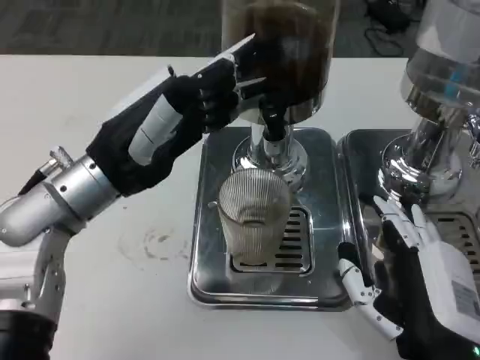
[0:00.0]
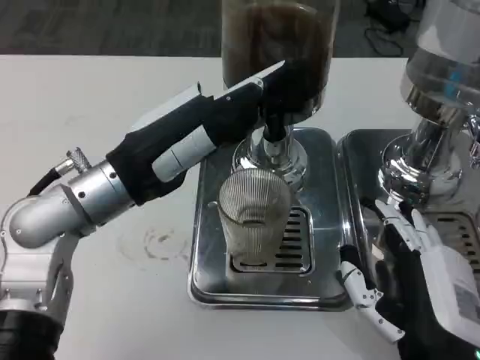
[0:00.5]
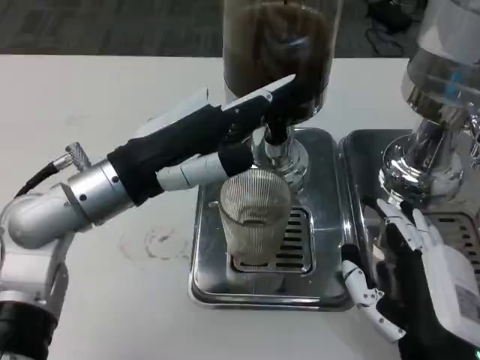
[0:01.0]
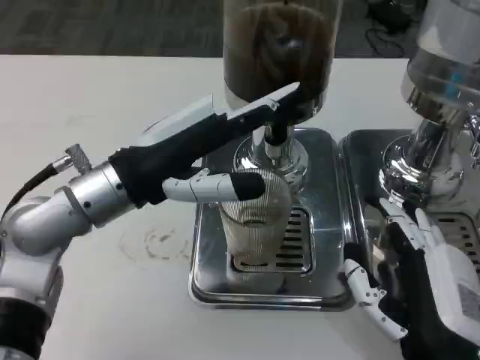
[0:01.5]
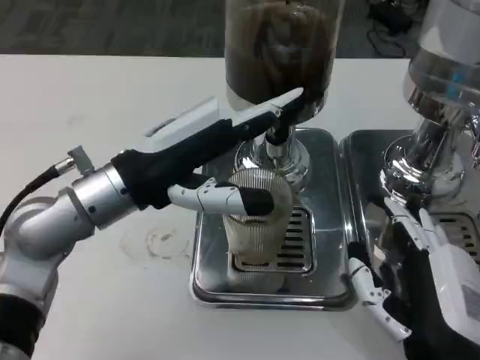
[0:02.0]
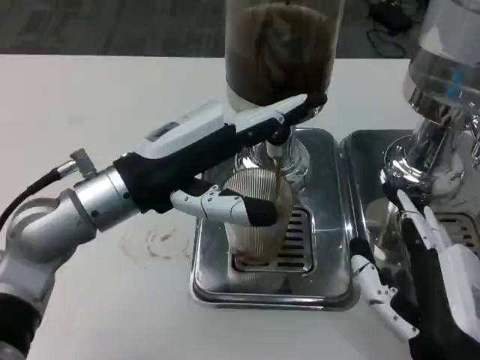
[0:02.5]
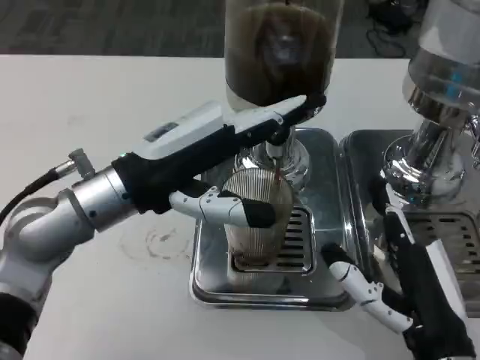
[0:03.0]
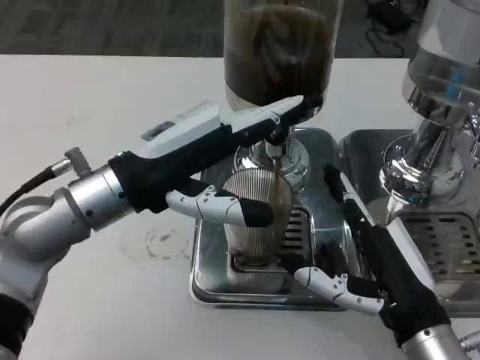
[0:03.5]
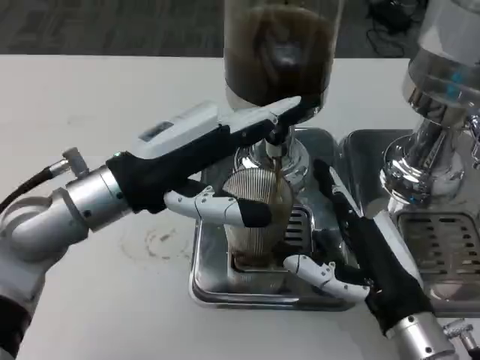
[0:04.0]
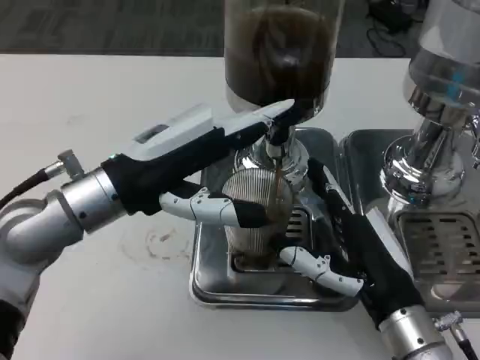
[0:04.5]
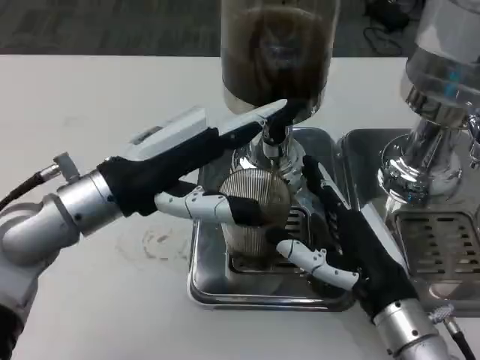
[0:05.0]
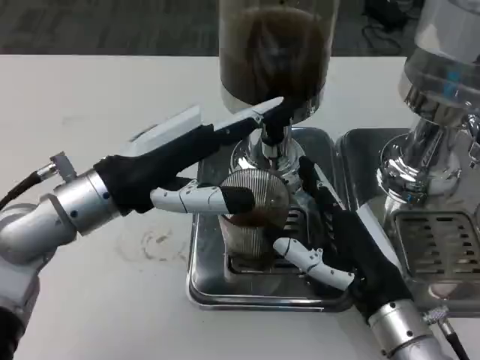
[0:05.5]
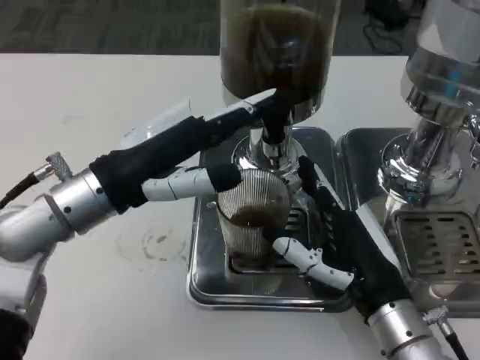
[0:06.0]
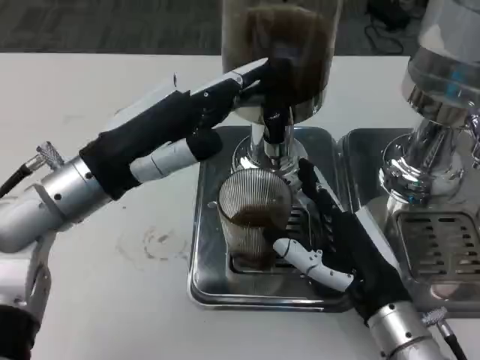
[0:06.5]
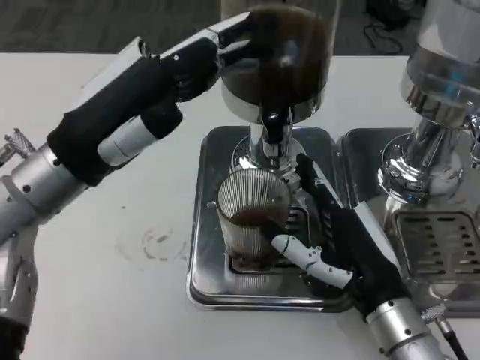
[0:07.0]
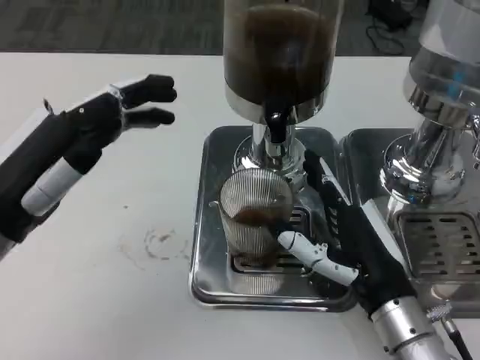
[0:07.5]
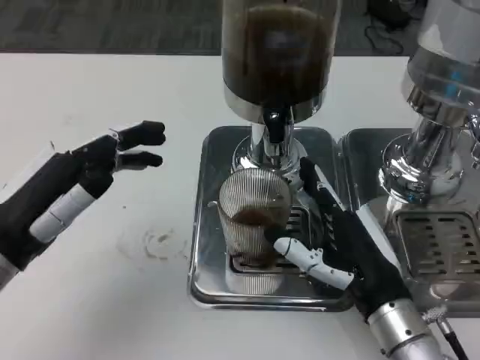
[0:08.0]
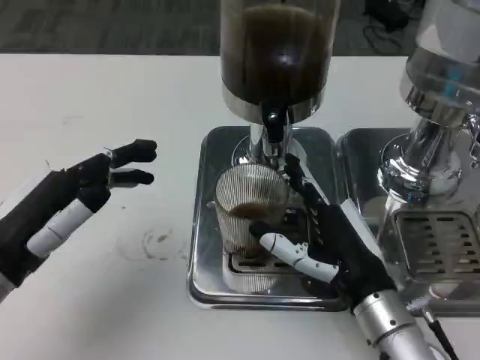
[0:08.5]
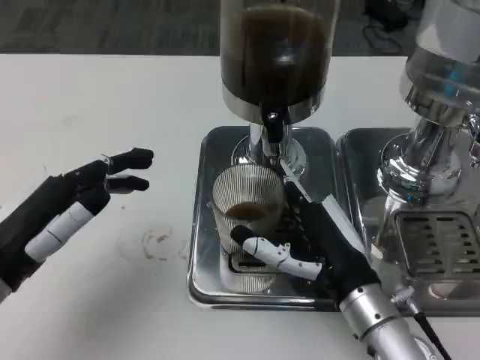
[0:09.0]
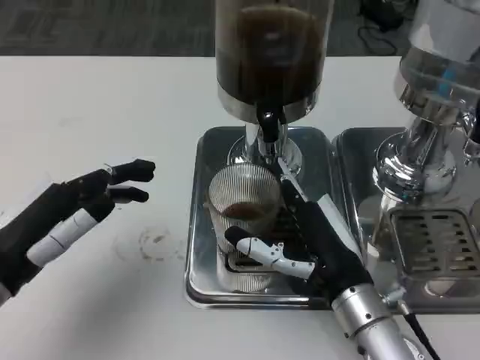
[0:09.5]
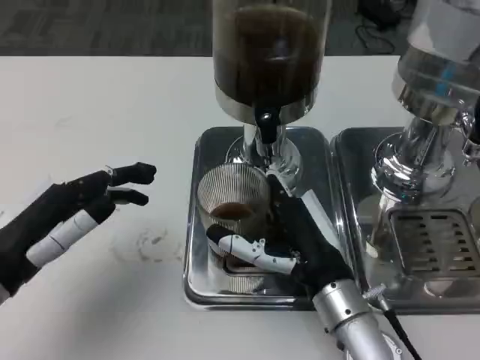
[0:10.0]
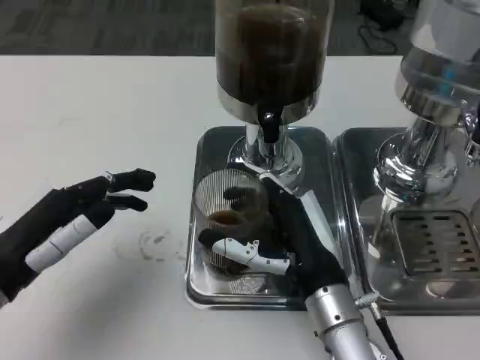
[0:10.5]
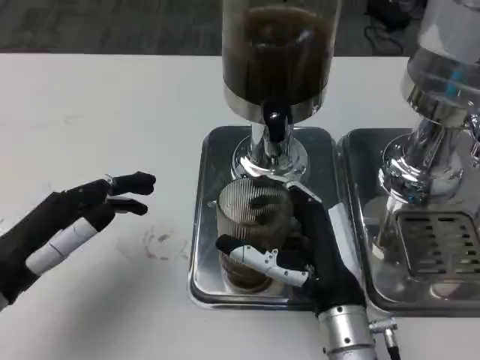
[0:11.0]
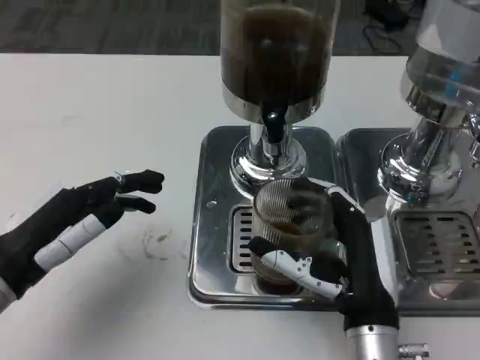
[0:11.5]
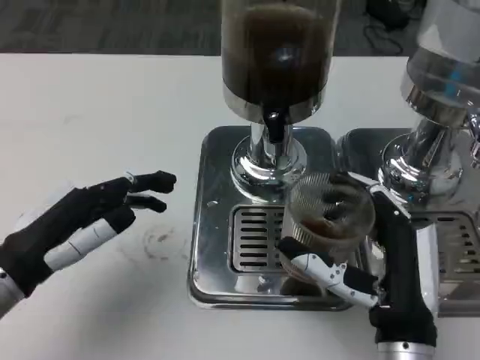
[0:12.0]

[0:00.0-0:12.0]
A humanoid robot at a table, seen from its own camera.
Task of the whole recording: Grasp the cup under the faucet to collect the drink, then remove the cup.
0:02.0 to 0:04.0: The right hand heads forward, covering approximately 5 cm.
0:06.0 to 0:08.0: The left hand shifts about 10 cm to the left and backward.
0:08.0 to 0:10.0: The right hand is displaced to the left by roughly 5 cm.
0:10.0 to 0:12.0: The right hand goes approximately 5 cm backward.

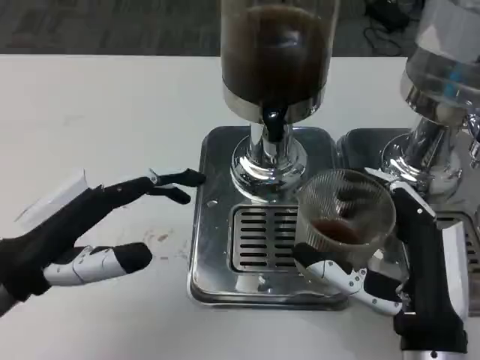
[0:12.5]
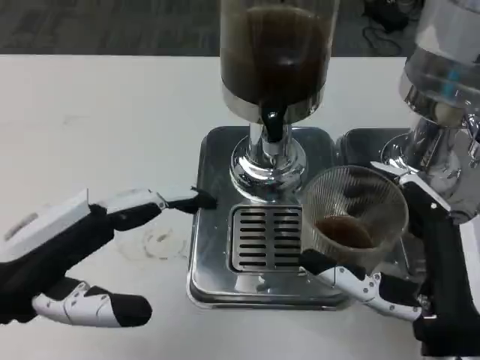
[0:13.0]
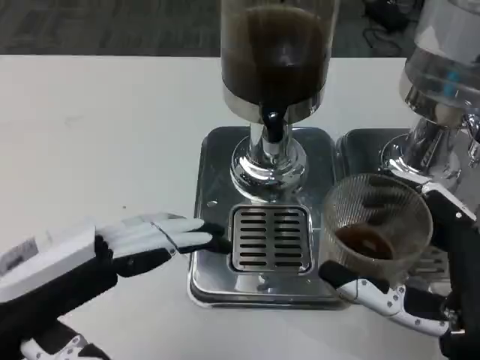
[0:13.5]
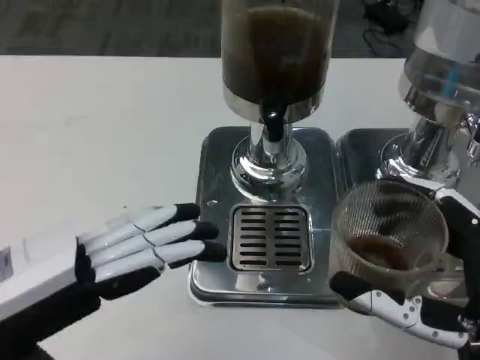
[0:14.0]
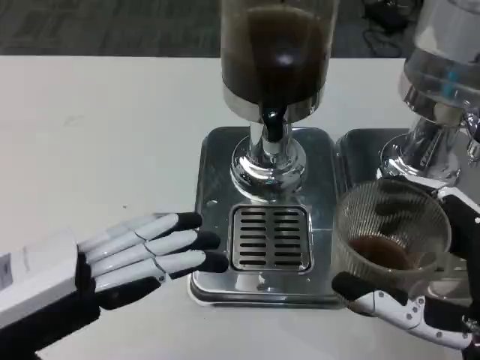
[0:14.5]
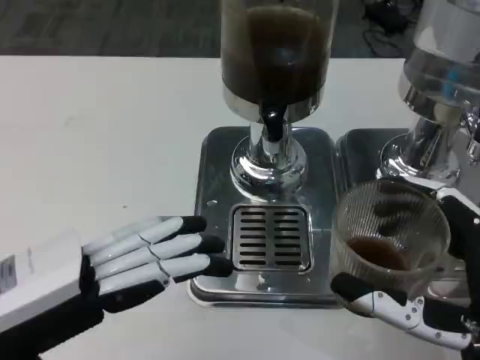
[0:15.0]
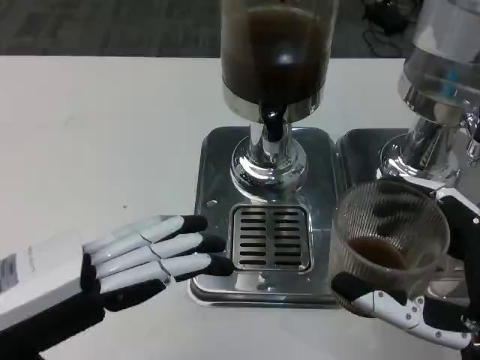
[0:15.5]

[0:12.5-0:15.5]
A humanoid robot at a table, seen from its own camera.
Task of the whole recording: Grasp the cup under the faucet to collect the drink, then remove the cup.
0:12.5 to 0:14.0: The right hand shifts by approximately 5 cm. Meanwhile the left hand travels backward by approximately 5 cm.
0:14.0 to 0:15.5: Neither hand changes place.

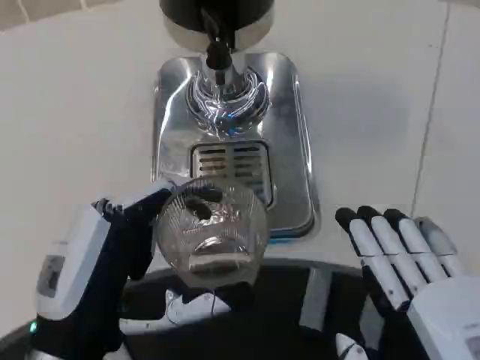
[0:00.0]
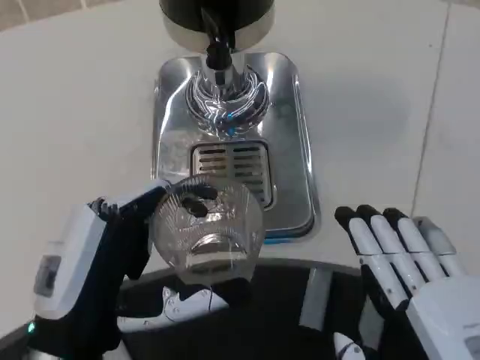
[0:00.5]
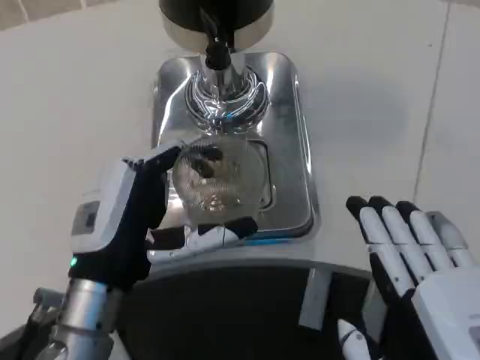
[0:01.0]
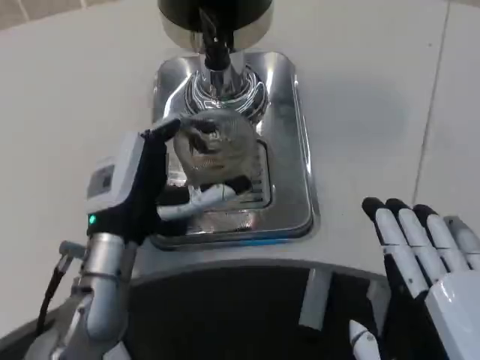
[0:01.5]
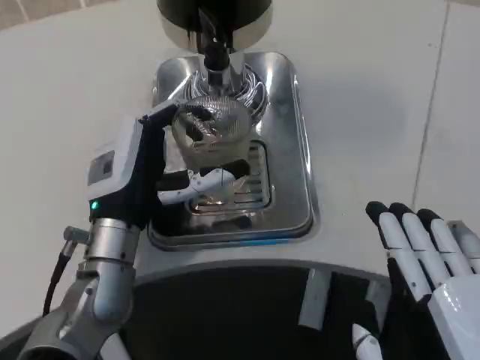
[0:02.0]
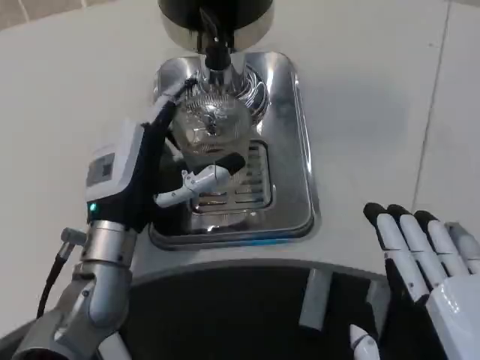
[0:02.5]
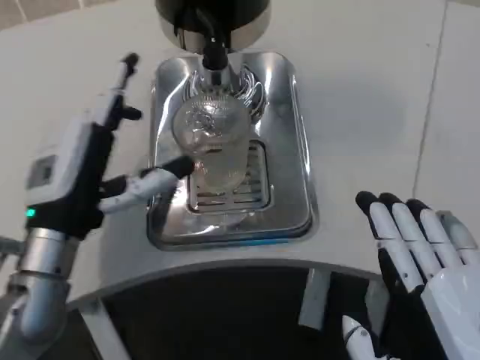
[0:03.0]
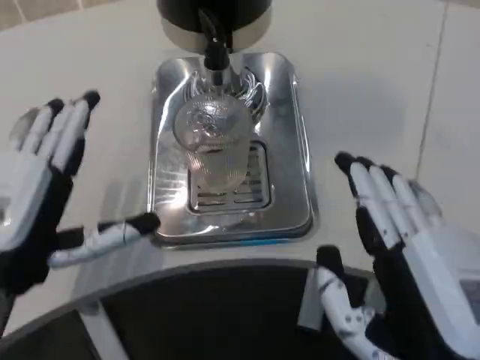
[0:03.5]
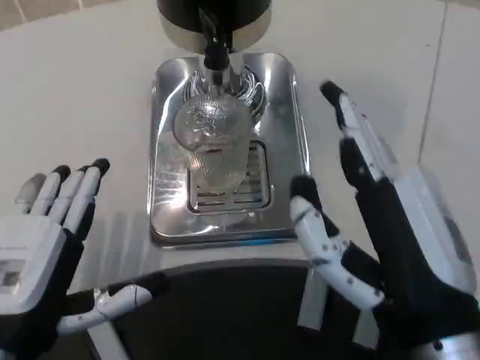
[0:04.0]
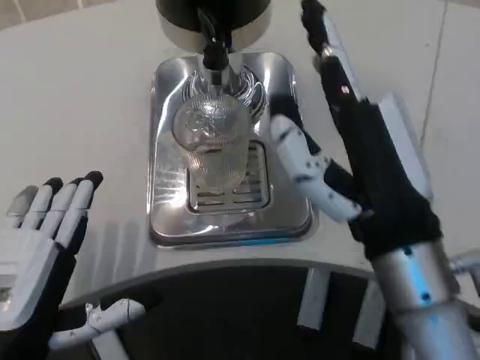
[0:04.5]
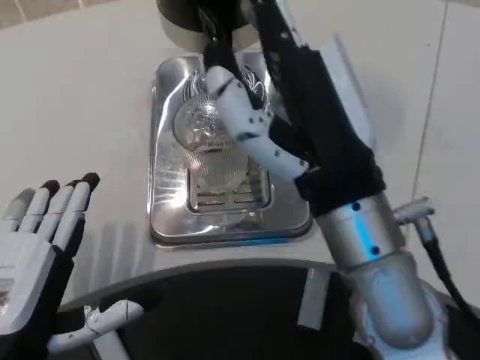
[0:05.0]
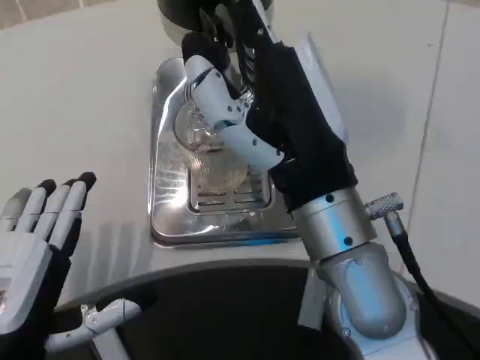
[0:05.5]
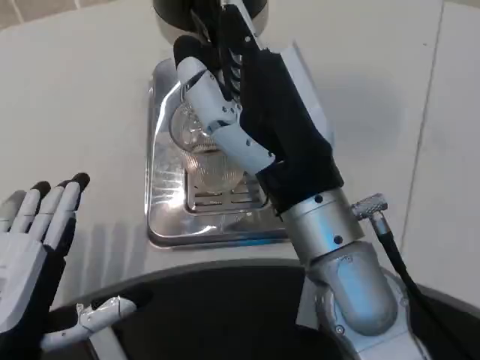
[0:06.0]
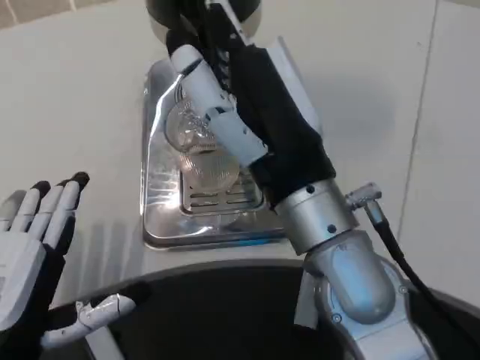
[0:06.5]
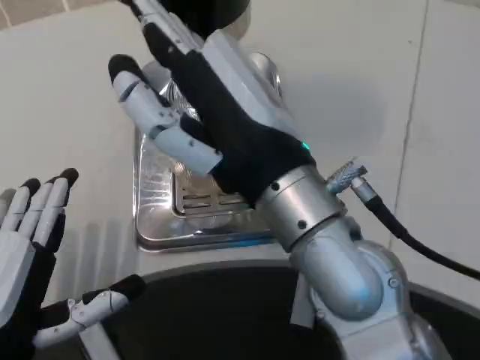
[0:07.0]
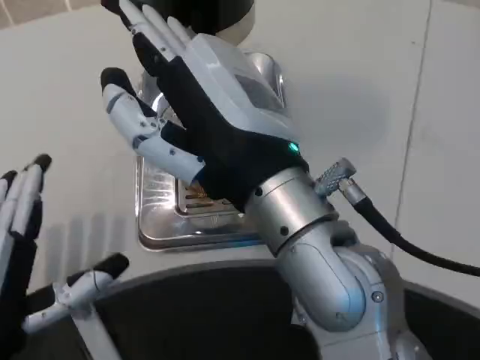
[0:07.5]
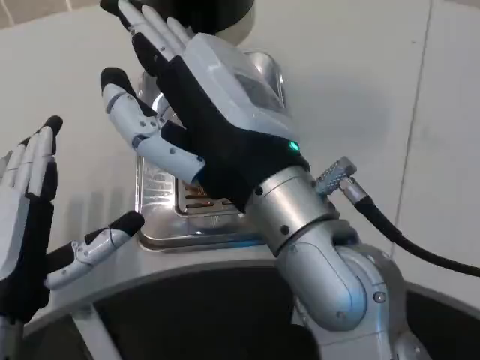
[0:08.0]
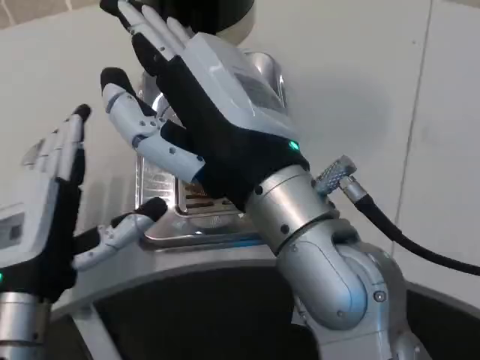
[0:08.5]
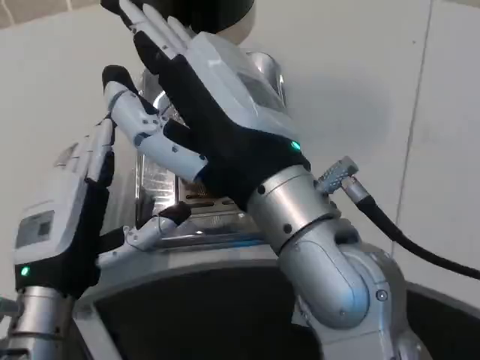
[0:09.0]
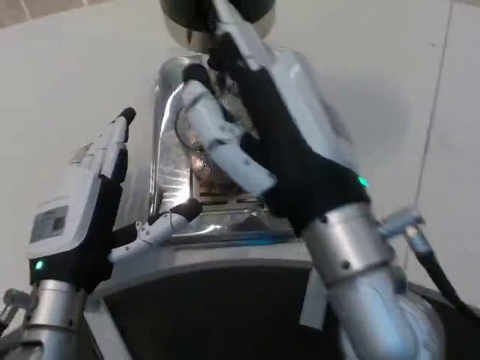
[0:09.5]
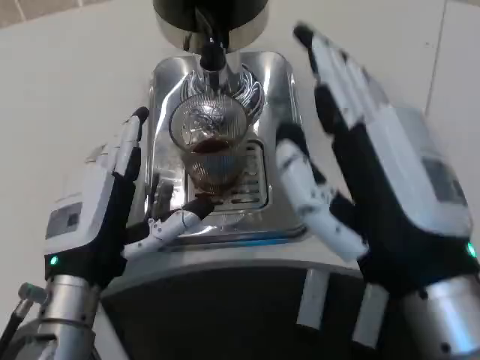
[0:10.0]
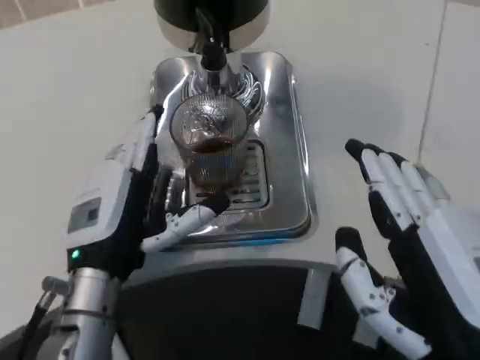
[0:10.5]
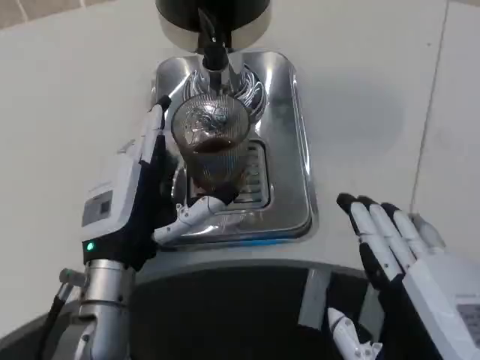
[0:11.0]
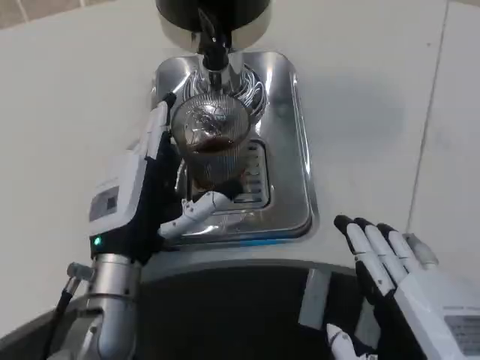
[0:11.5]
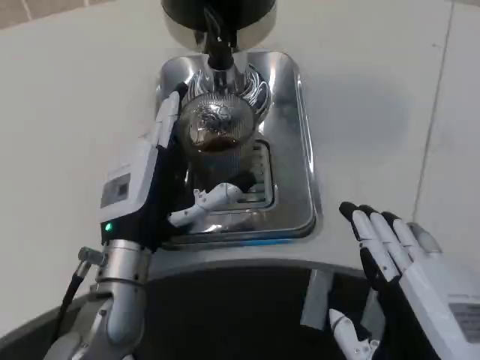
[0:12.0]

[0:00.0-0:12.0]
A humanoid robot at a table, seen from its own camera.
Task of the whole recording: Grasp the cup under the faucet to collect the drink, then remove the cup.
0:00.0 to 0:02.0: The left hand moves forward, roughly 15 cm.
0:02.0 to 0:04.0: The left hand is displaced backward and to the left by approximately 15 cm, while the right hand shifts roughly 10 cm forward.
0:04.0 to 0:06.0: The right hand is displaced forward and to the left by roughly 10 cm.
0:06.0 to 0:08.0: The left hand heads forward, covering about 5 cm, while the right hand ends up about 5 cm from where it was.
0:08.0 to 0:10.0: The right hand is displaced to the right and backward by approximately 10 cm. The left hand shifts by about 5 cm.
0:10.0 to 0:12.0: The left hand is displaced forward by approximately 5 cm. The right hand goes approximately 10 cm downward and backward.
